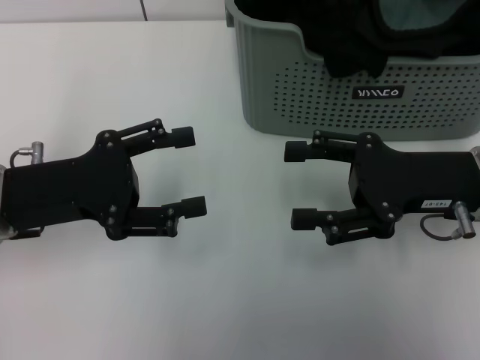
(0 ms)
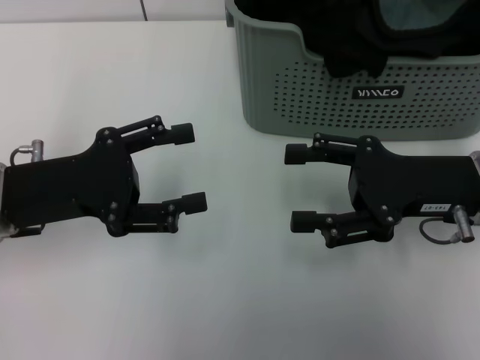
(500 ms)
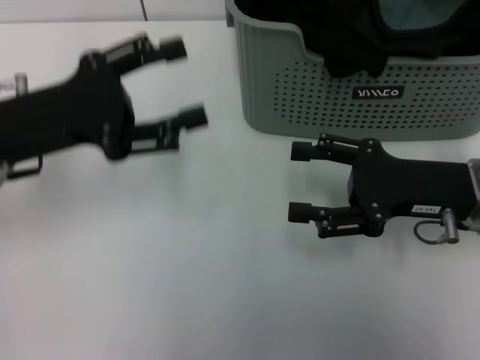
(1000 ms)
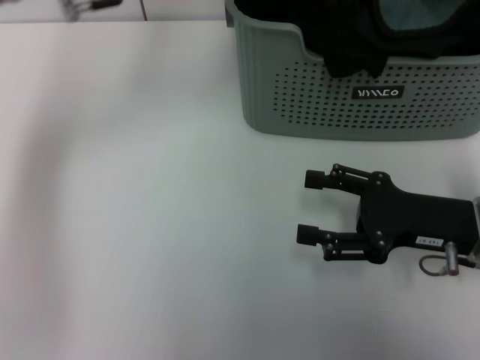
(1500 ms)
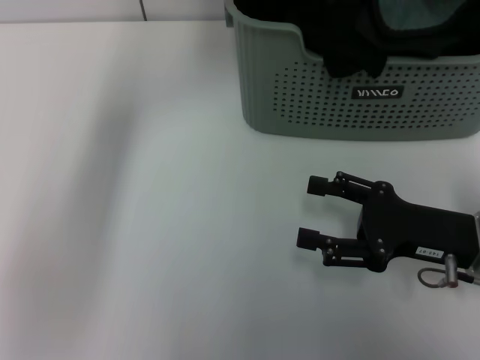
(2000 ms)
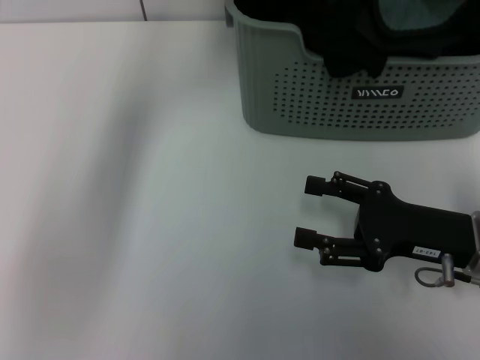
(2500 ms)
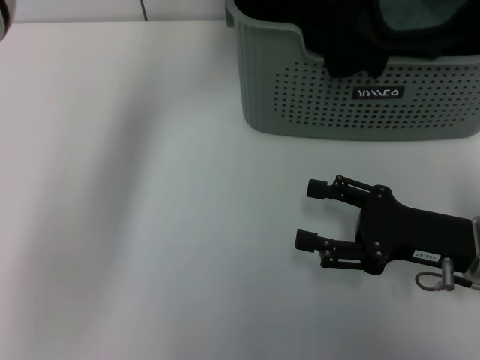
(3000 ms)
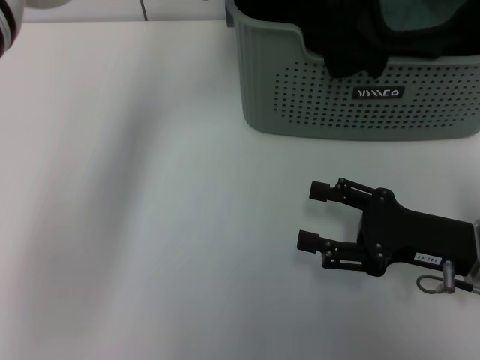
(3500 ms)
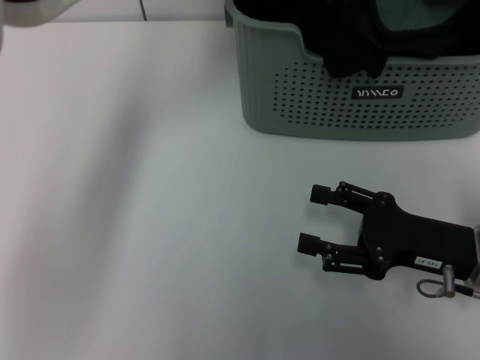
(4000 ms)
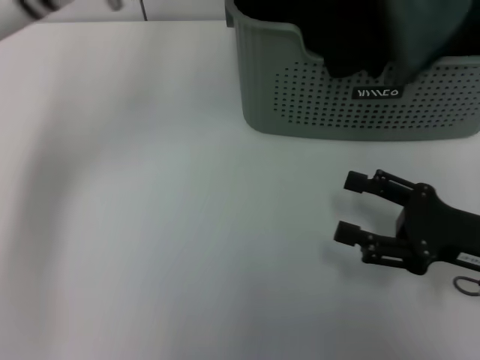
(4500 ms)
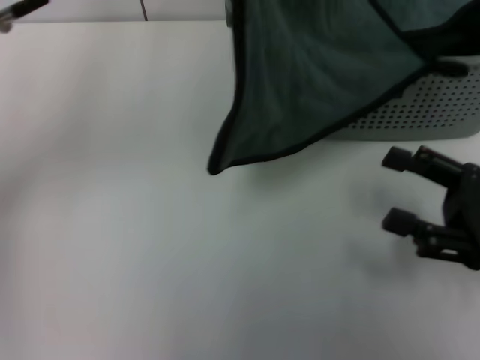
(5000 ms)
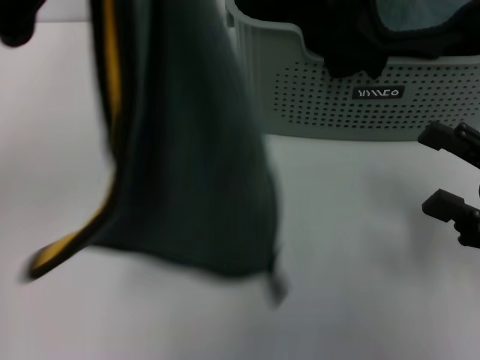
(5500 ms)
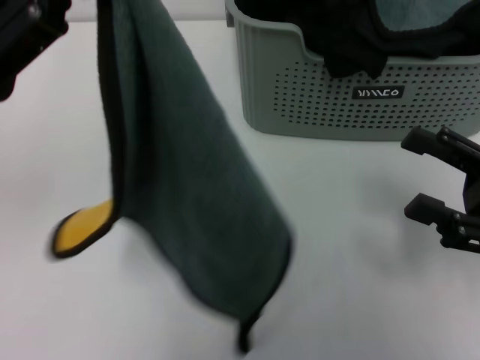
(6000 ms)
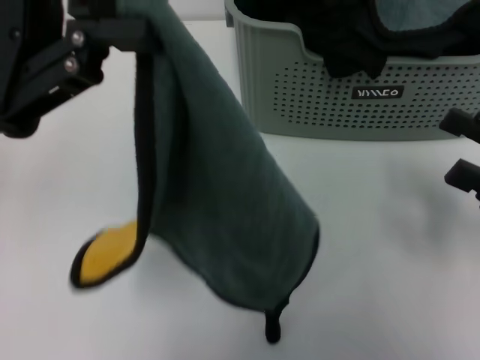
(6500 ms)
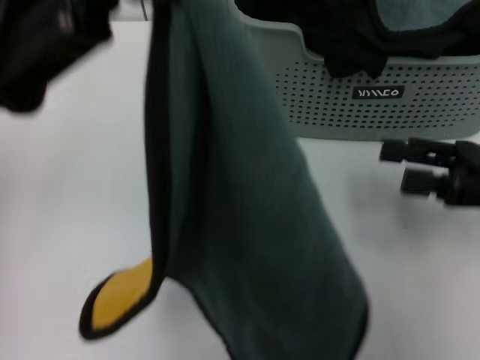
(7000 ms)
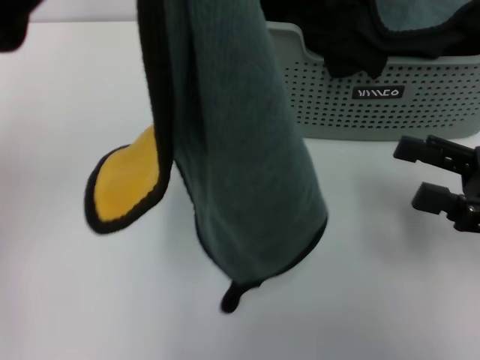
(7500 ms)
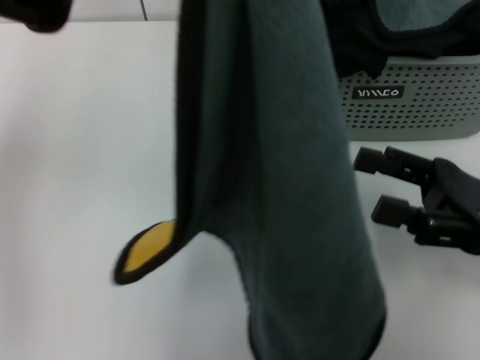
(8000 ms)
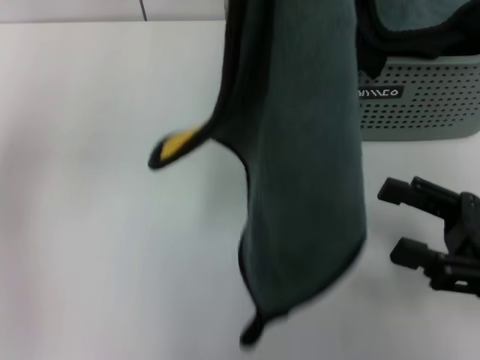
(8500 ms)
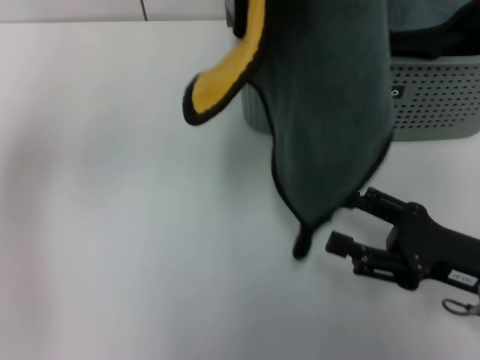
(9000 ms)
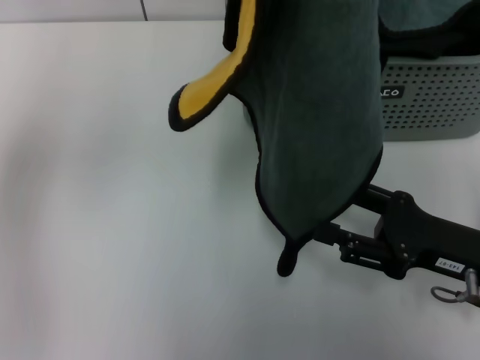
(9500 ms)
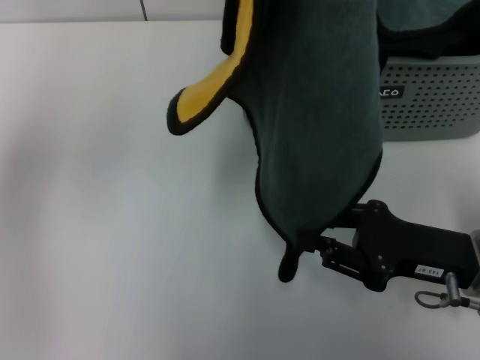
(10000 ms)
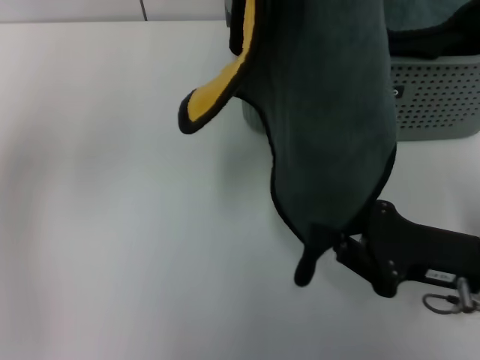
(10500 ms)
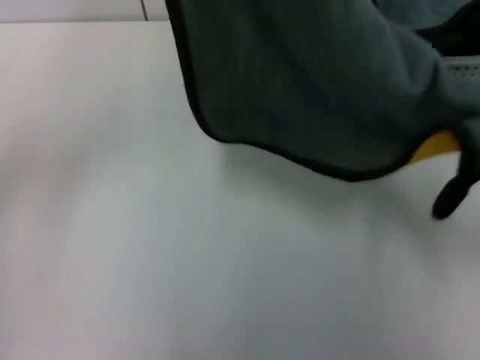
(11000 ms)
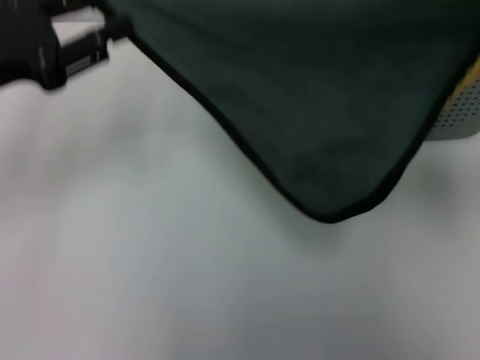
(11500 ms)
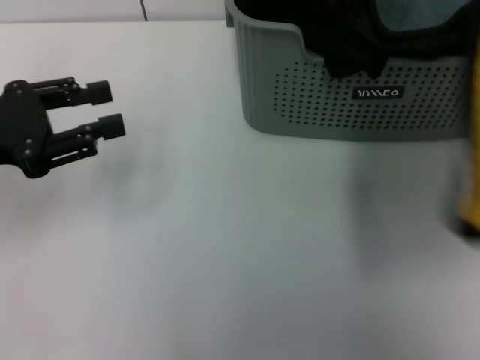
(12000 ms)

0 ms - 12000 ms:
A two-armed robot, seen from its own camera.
Task of the whole recording: pick up the towel from the storage box and lay it flat on the table.
Step, 0 ms - 4000 ms: Pick up a towel with the left gripper.
Step, 4500 ms - 10000 ms: Spread the towel flat with the left gripper.
0 ms - 2000 ms: The right gripper shifts approximately 5 cm downward, while the left gripper travels forward, to the right and upward by some 30 cm.
2000 ms - 4000 ms: The left gripper closes up.
4000 ms - 6000 ms: The right gripper goes about 5 cm to the right. The left gripper goes roughly 25 cm to the left and backward.
6000 ms - 8000 ms: The left gripper shifts approximately 10 cm to the right and upward.
8000 ms - 10000 ms: The right gripper ends up roughly 5 cm from where it was.
10000 ms - 12000 ms: The left gripper goes approximately 20 cm downward and to the left, and opens up. The right gripper moves upward, some 25 cm, and closes.

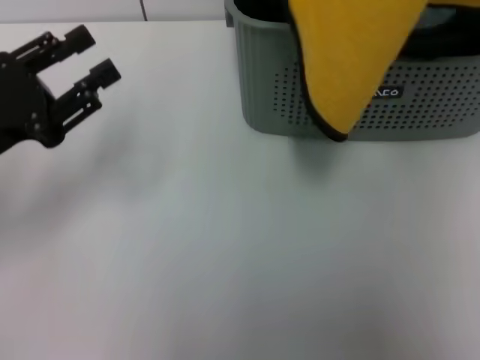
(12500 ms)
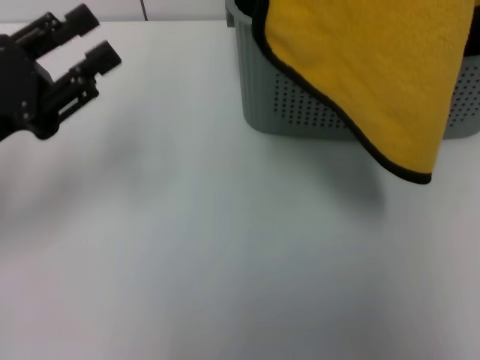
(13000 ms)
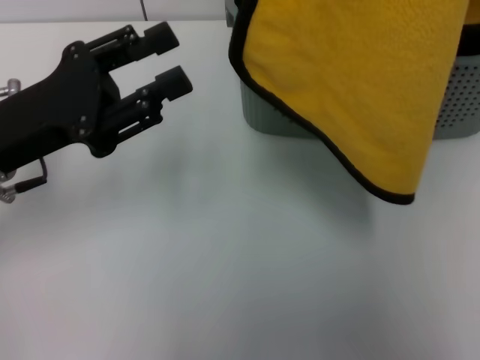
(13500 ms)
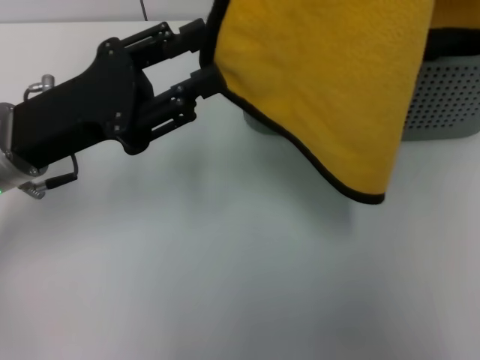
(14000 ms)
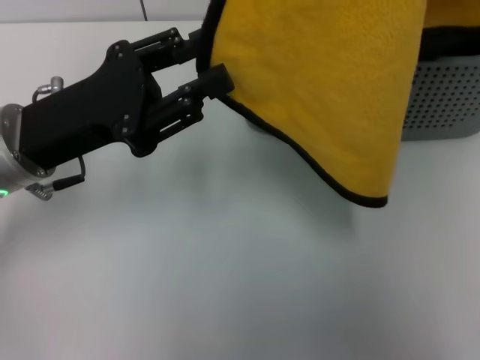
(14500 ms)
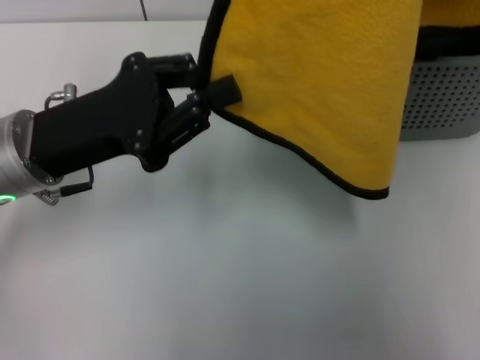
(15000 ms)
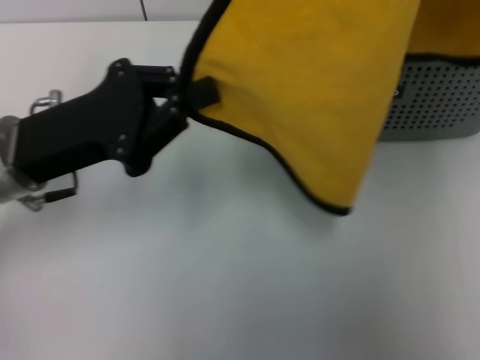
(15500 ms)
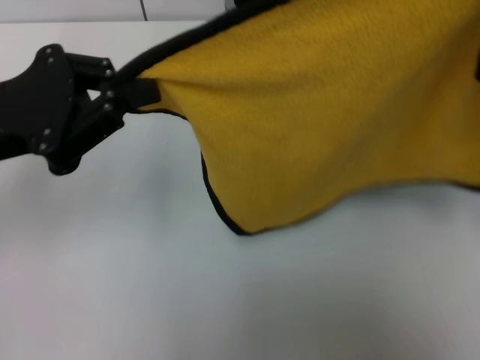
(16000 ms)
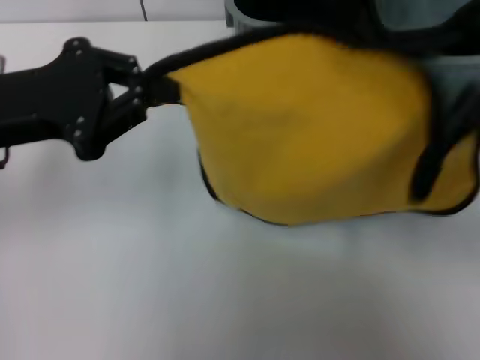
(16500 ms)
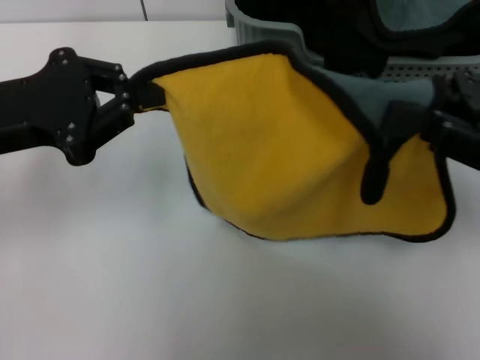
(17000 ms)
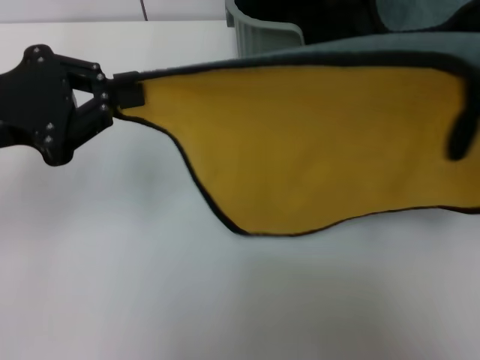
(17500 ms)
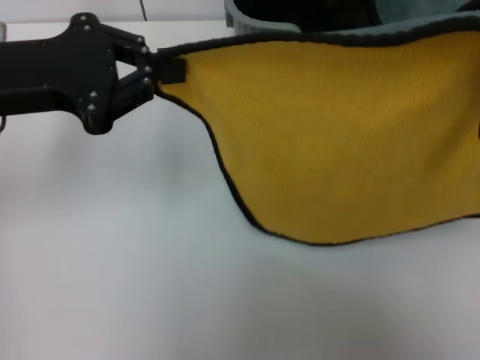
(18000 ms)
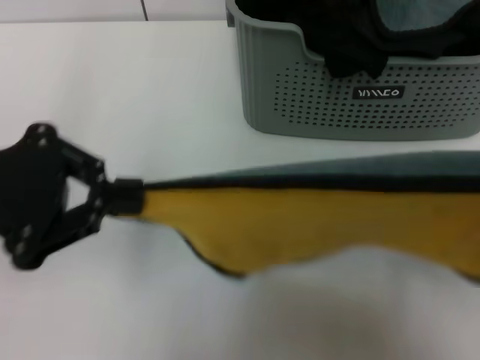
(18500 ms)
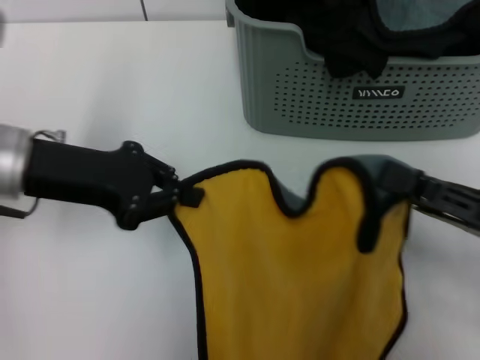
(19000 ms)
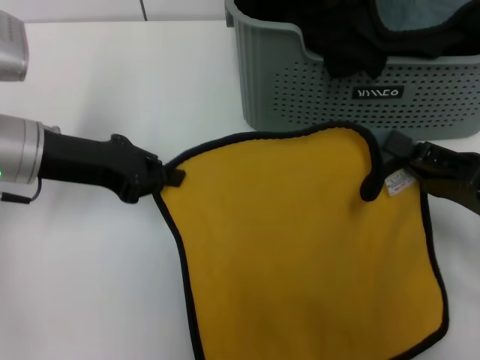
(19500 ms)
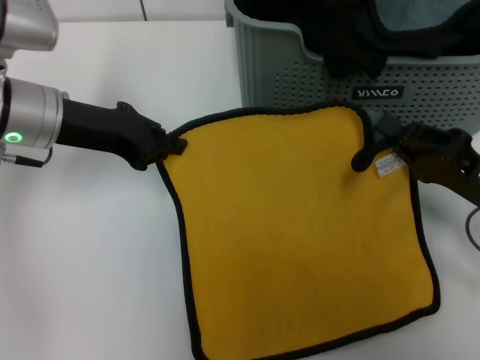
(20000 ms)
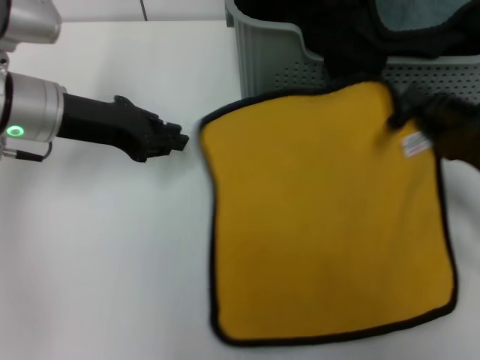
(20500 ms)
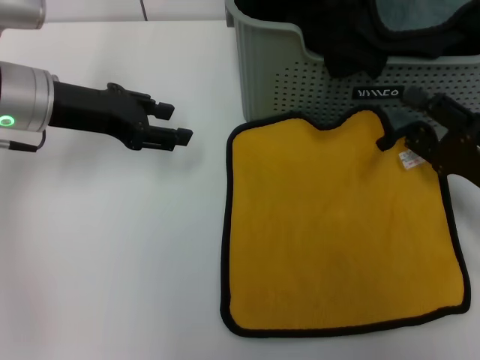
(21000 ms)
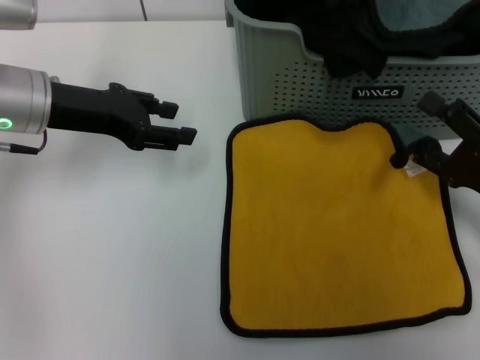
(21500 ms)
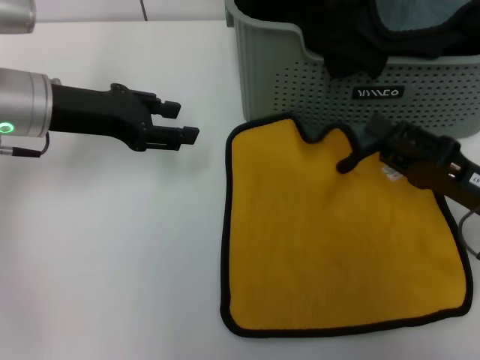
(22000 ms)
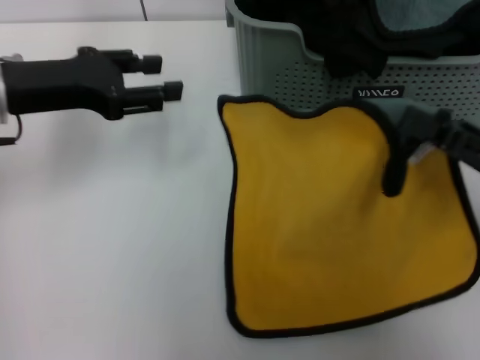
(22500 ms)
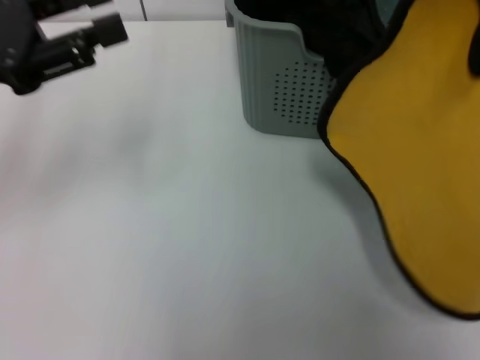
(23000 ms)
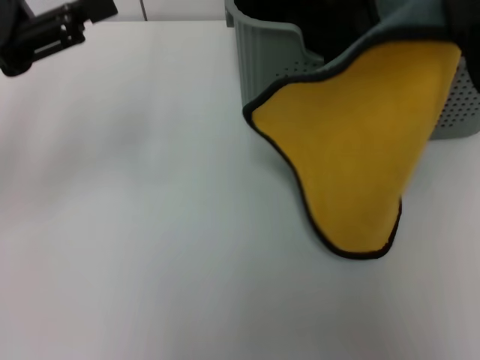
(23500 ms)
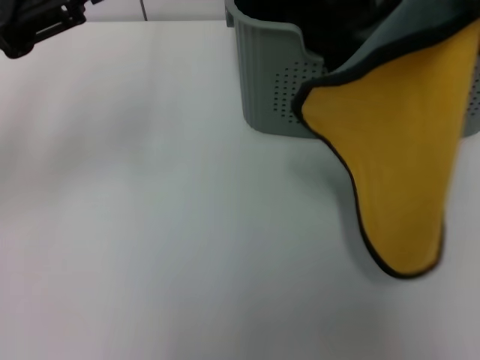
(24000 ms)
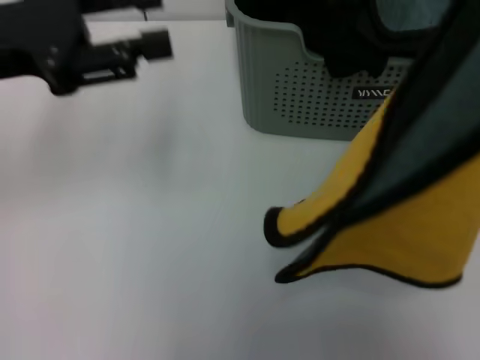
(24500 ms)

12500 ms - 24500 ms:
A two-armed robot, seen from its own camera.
Task of the whole recording: pick up the towel from the storage box and lay it flat on the table.
12500 ms - 14500 ms: The left gripper moves to the right, approximately 5 cm.
14500 ms - 16500 ms: The right gripper goes about 15 cm downward and backward, while the left gripper changes place by roughly 5 cm, and closes.
16500 ms - 18500 ms: The two grippers go roughly 5 cm backward.
18500 ms - 20500 ms: Both grippers travel together forward and downward, about 15 cm.
20500 ms - 22500 ms: The right gripper moves upward, about 5 cm, and opens, then closes once more, while the left gripper moves approximately 5 cm, and opens its fingers.
22500 ms - 24500 ms: The left gripper heads upward, covering some 5 cm; the right gripper is displaced upward by some 35 cm.

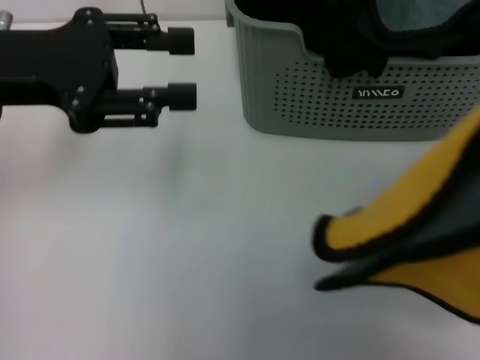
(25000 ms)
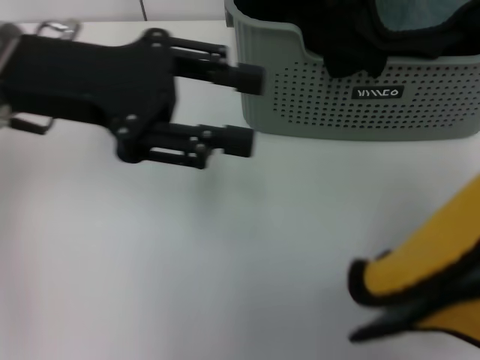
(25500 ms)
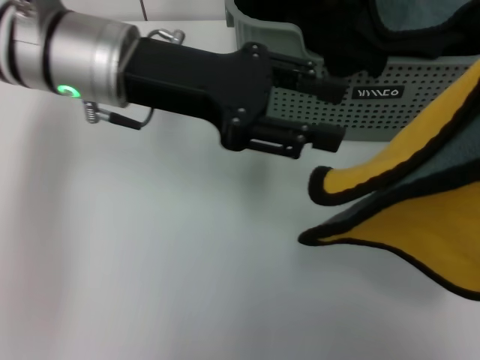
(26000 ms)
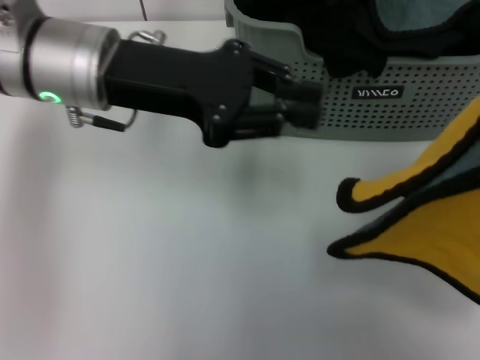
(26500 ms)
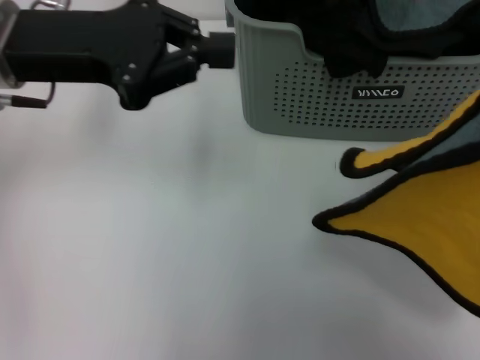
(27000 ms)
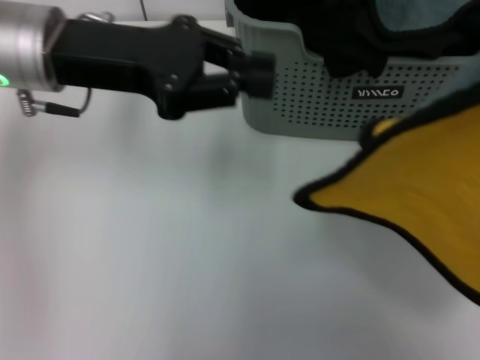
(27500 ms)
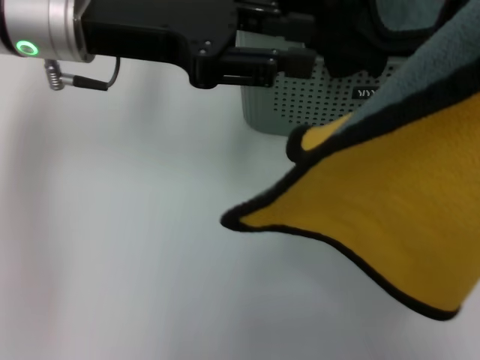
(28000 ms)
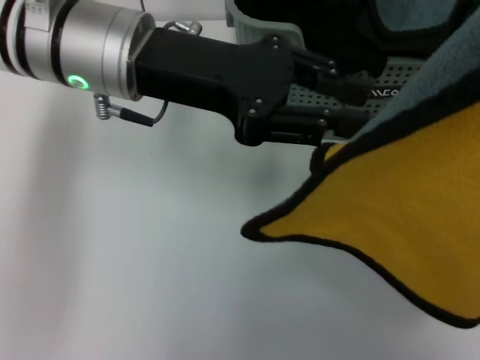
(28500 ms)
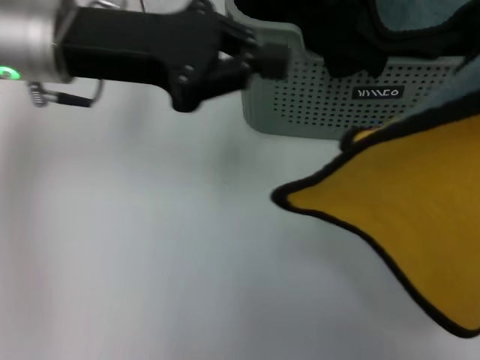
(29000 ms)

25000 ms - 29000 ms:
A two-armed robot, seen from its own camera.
Task of the whole recording: pick up the towel from the storage box and lay it flat on the table.
25000 ms - 27000 ms: The left gripper moves approximately 10 cm to the right and comes back, and closes its fingers, while the right gripper shifts some 10 cm to the right and downward.
